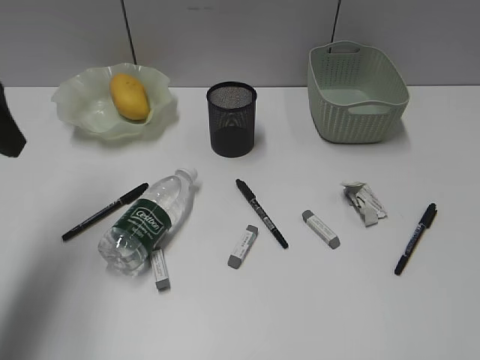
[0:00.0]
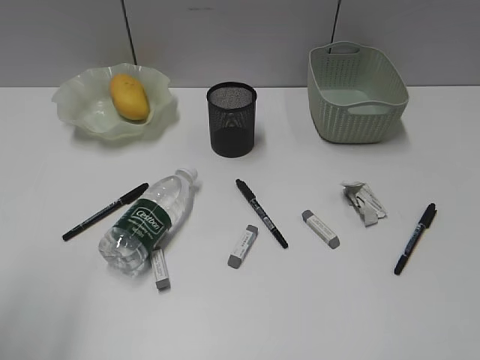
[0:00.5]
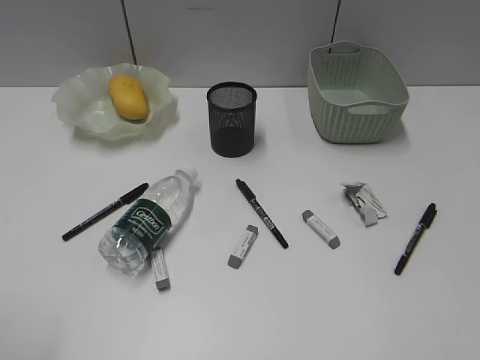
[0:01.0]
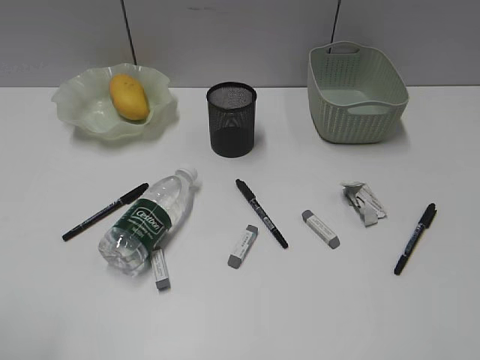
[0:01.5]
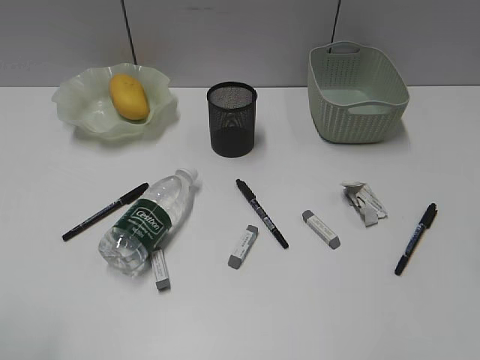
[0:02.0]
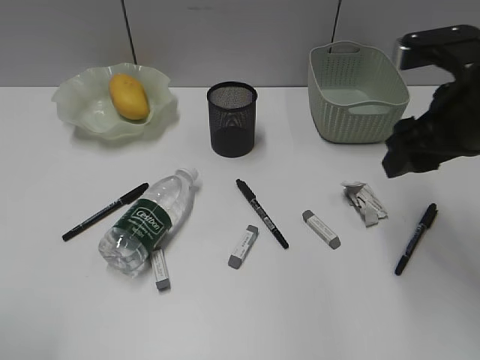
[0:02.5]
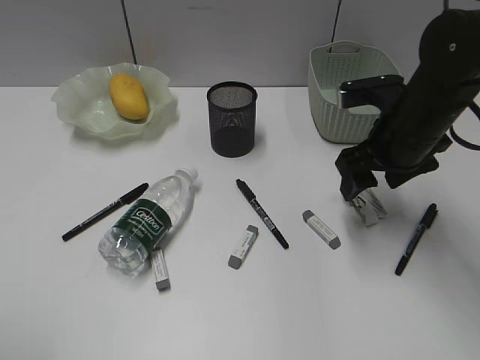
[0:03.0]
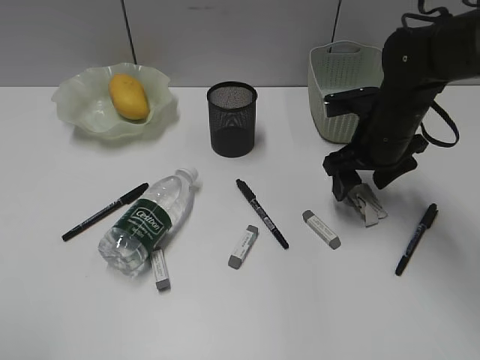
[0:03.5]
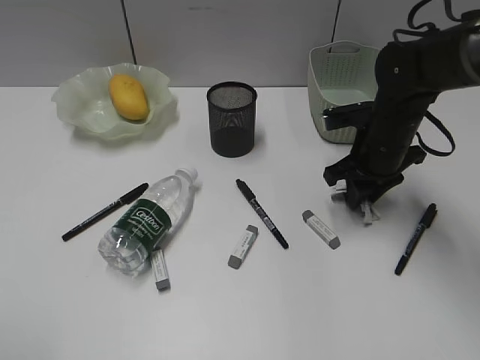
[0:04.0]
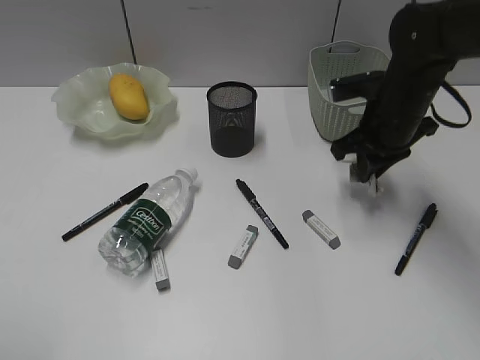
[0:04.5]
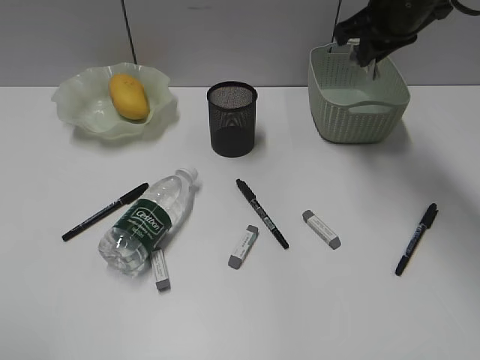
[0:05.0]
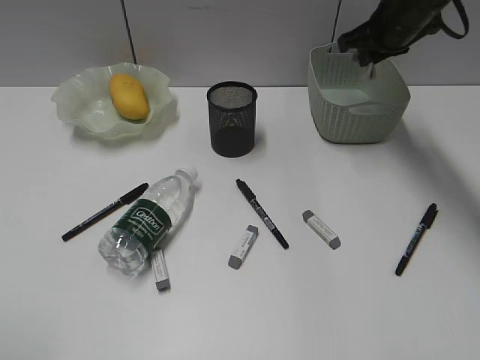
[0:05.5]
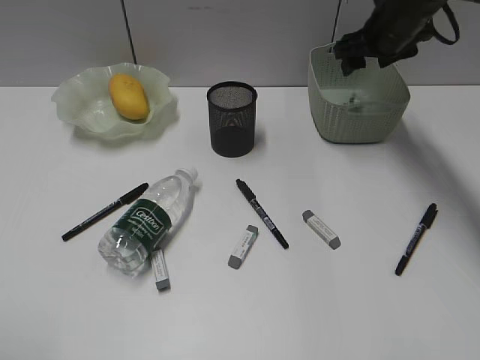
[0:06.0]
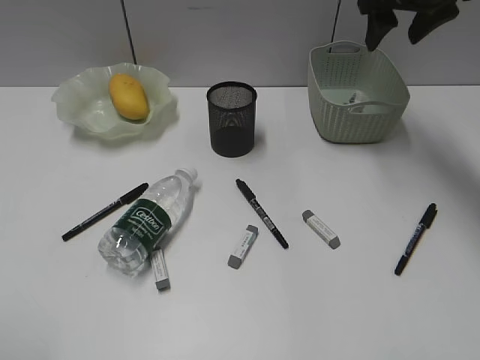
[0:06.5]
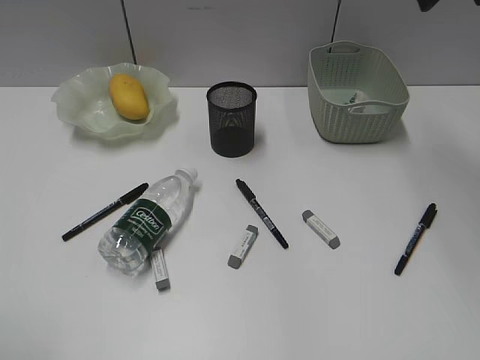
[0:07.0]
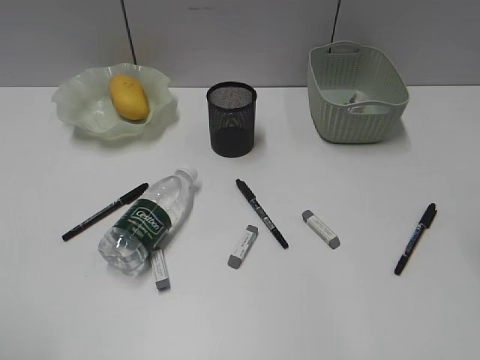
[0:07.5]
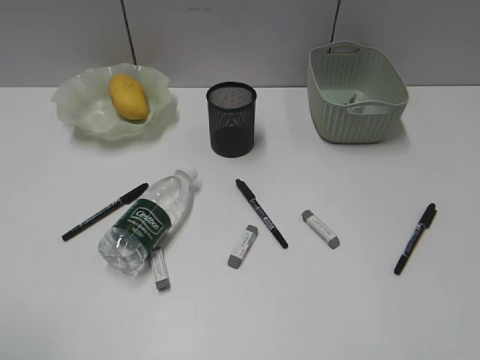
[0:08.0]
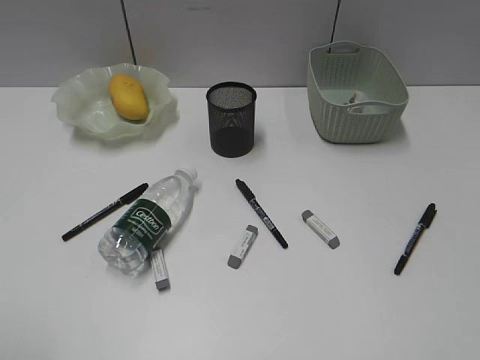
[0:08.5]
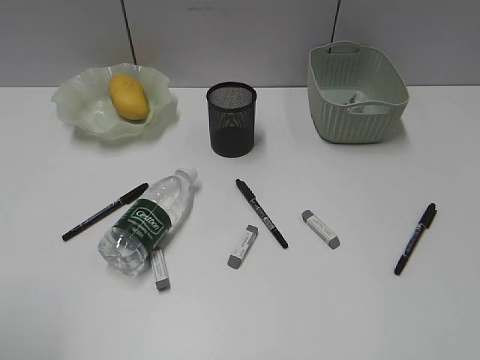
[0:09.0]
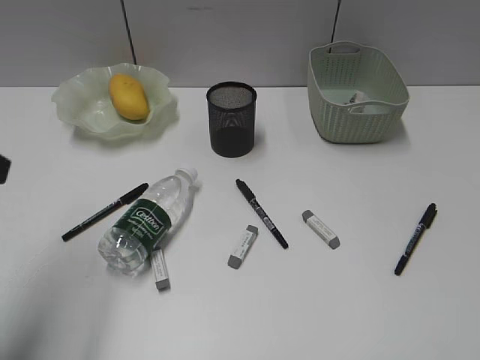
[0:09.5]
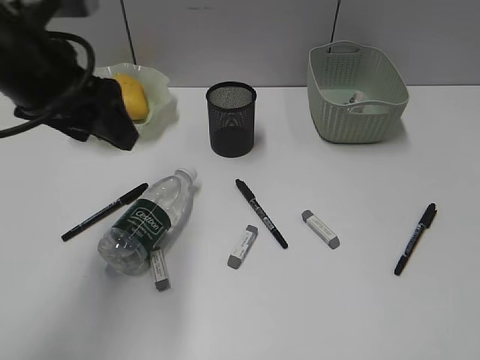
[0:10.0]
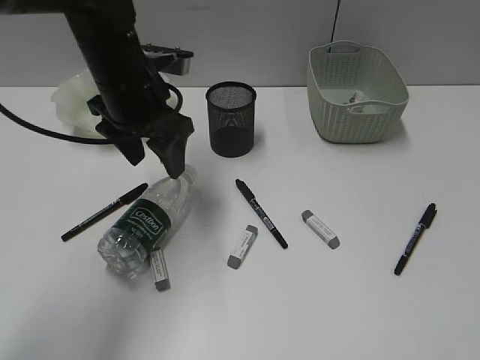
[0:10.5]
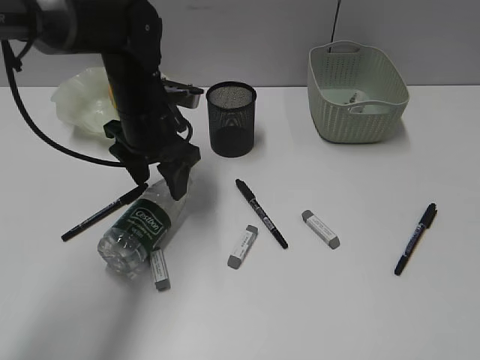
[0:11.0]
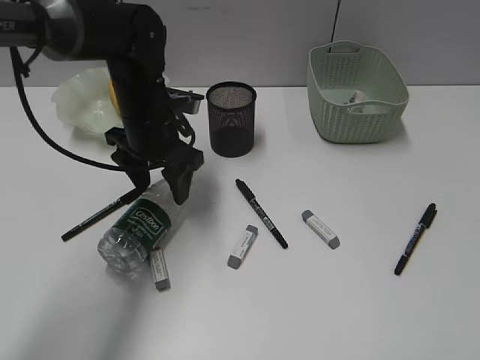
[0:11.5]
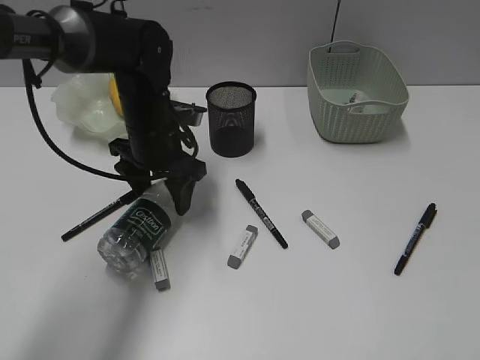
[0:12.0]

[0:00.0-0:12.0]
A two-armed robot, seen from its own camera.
Step, 0:00.0 to 0:04.0: Grasp the waste paper with right gripper.
Step, 0:04.5 to 0:05.5: Place the waste paper in the basket with right gripper.
0:00.0 to 0:02.0: The left gripper heads backward, covering approximately 20 cm.
0:02.0 to 0:04.0: The right gripper travels forward, downward and to the left by roughly 30 cm, and closes up.
0:04.0 to 0:06.0: The right gripper travels forward and upward by some 15 cm, and opens.
0:06.0 to 0:08.0: The right gripper is displaced backward by about 50 cm.
0:08.0 to 0:10.0: The left gripper travels forward and to the right by some 30 cm, while the right gripper goes approximately 5 cm downward.
0:10.0 to 0:12.0: The left gripper goes approximately 20 cm downward, forward and to the right.

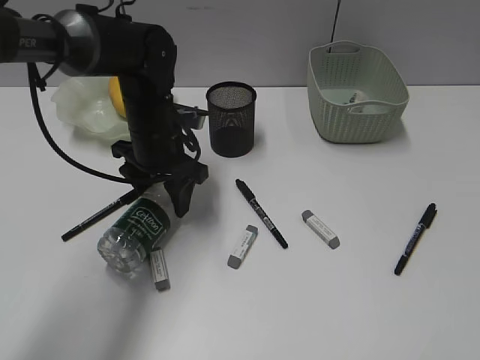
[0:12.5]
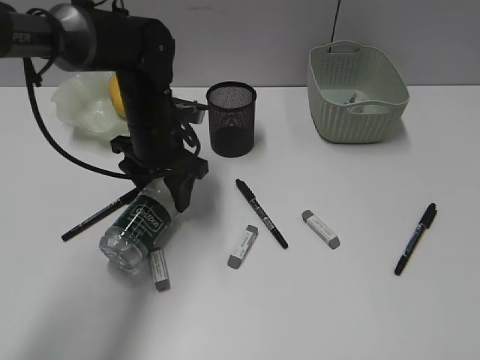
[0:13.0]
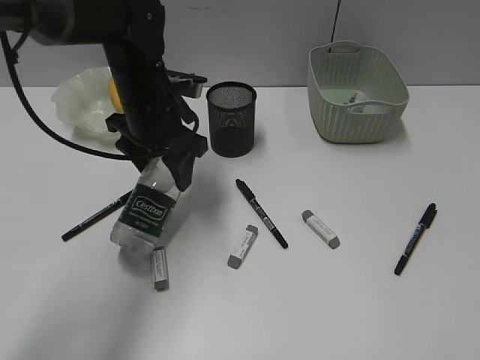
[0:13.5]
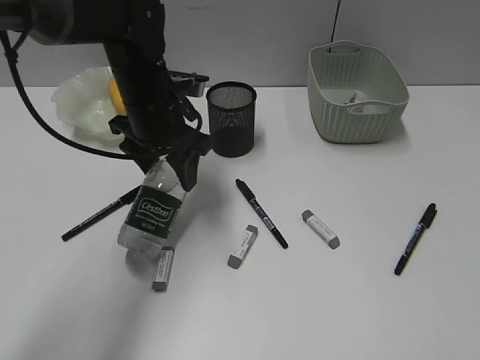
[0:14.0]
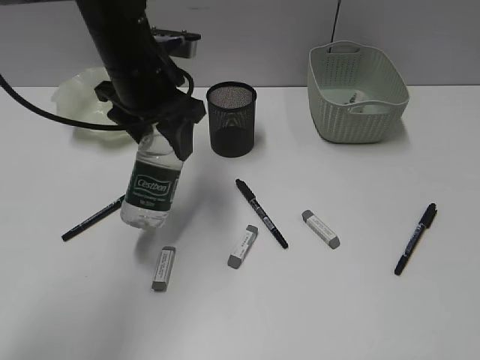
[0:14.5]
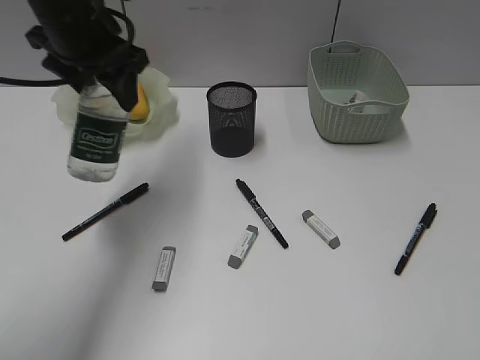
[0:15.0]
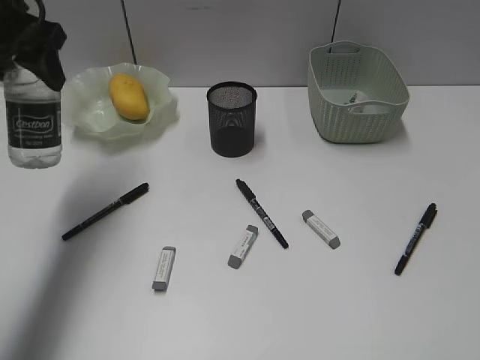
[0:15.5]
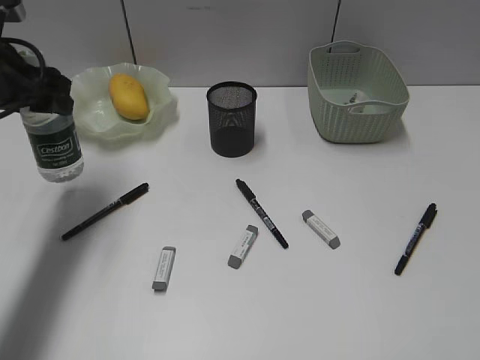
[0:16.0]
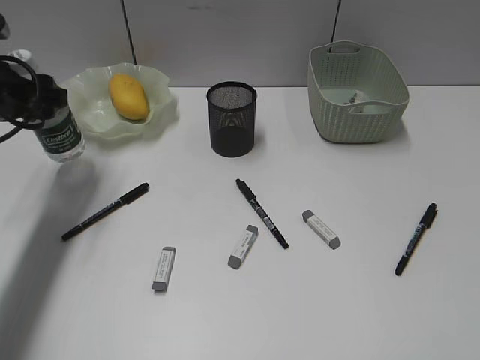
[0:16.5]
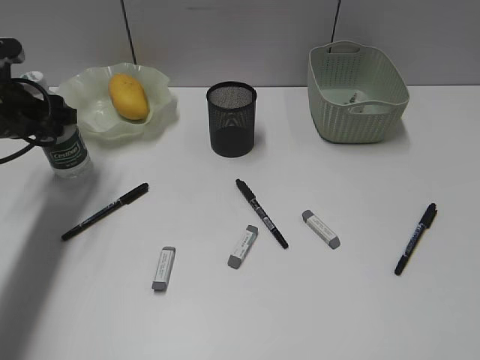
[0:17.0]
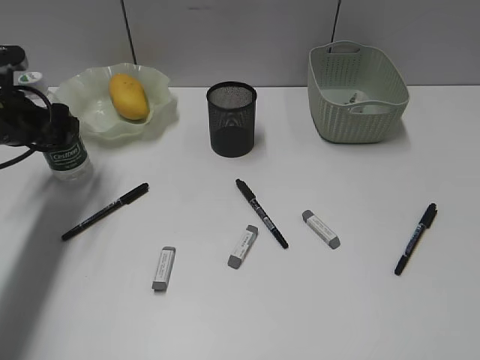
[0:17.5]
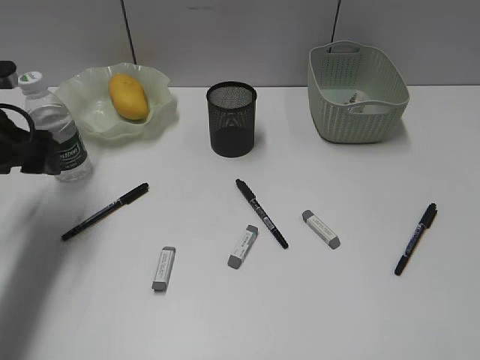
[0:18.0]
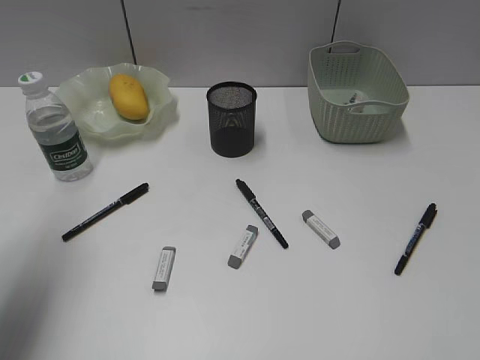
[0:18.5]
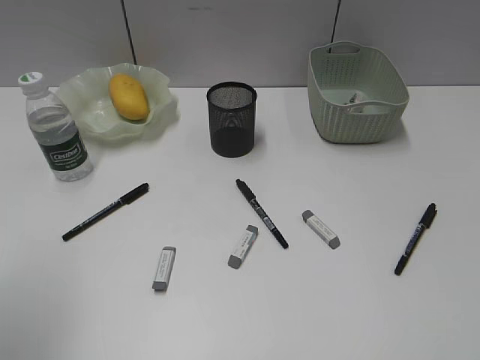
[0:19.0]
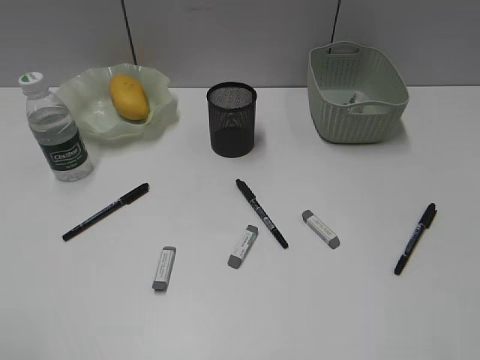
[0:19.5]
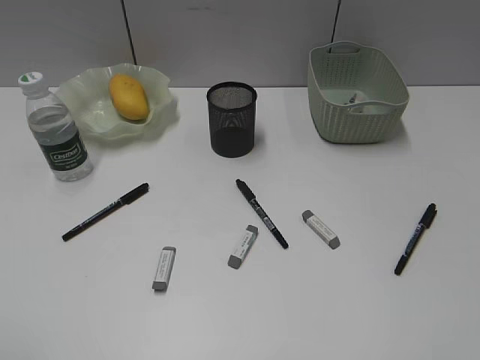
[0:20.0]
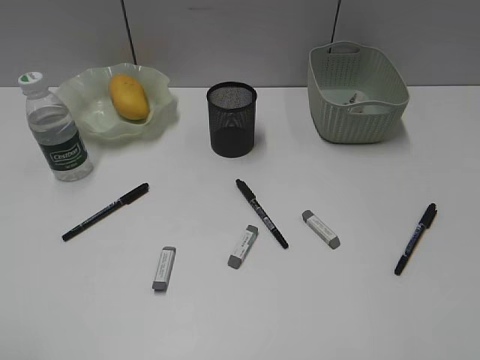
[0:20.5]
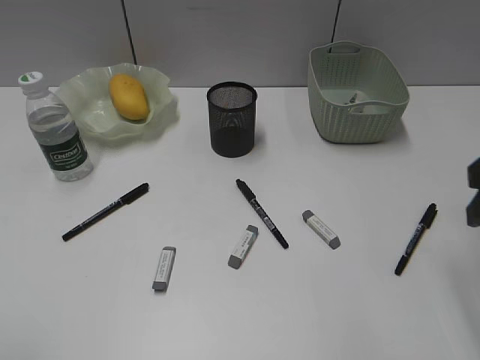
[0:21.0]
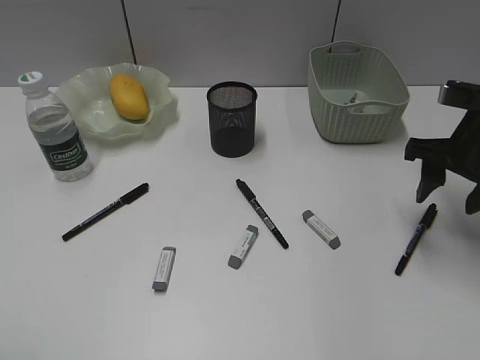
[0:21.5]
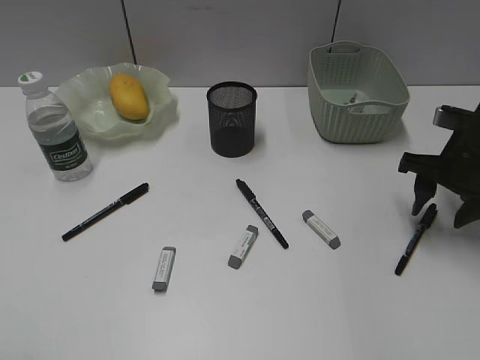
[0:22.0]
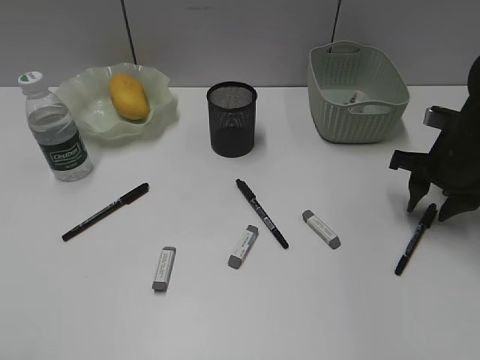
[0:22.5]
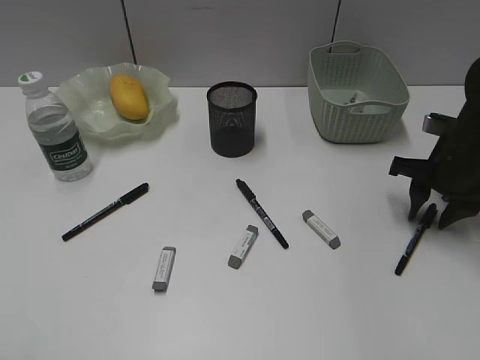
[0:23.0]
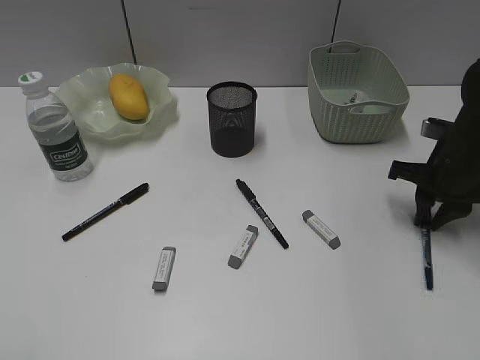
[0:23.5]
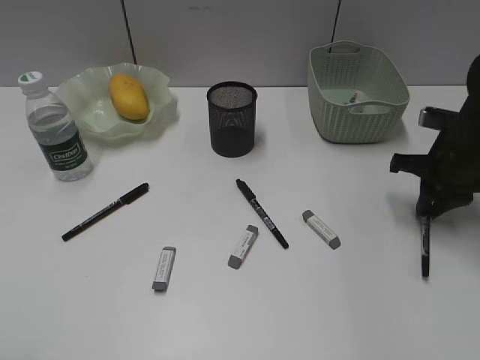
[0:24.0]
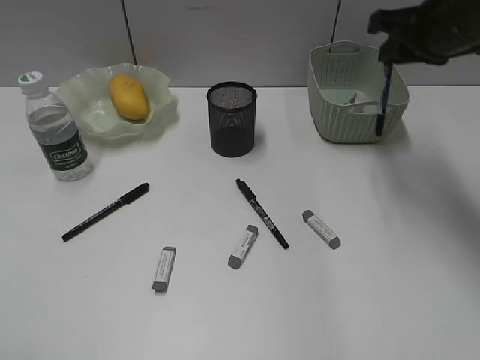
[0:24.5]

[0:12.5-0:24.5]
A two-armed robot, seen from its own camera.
Step, 0:13.0 to 0:17.5: Stand the bottle with left gripper.
Step, 0:18.0 to 0:23.5: Grasp the black pen with right gripper.
0:12.5 to 0:14.5: The left gripper is displaced upward by some 10 cm.
0:14.5 to 0:16.5: The left gripper goes roughly 15 cm to the left.
0:16.5 to 0:18.5: The left gripper goes about 15 cm backward and upward.
0:18.5 to 0:20.5: The left gripper travels backward by roughly 20 cm.
0:20.5 to 0:22.5: The right gripper moves forward and downward, some 30 cm.
0:22.5 to 0:24.5: The right gripper shifts about 15 cm upward, and closes its fingers.

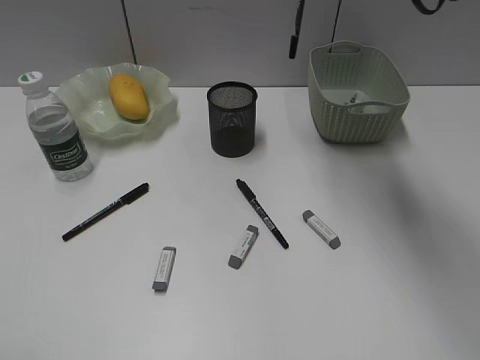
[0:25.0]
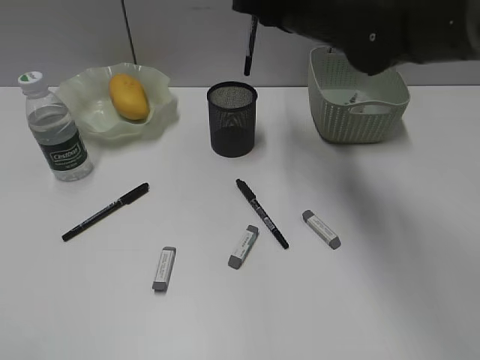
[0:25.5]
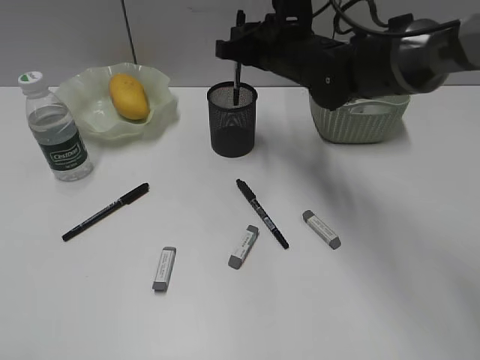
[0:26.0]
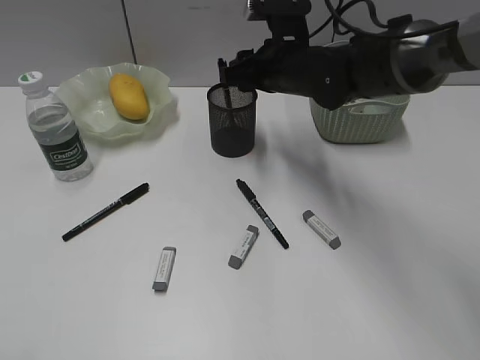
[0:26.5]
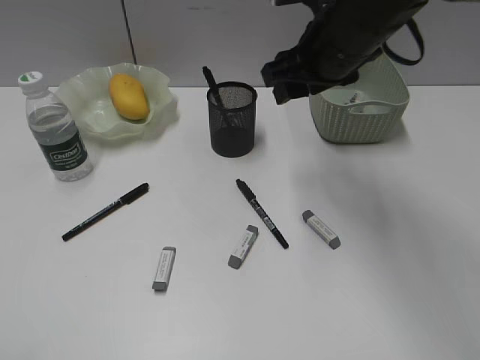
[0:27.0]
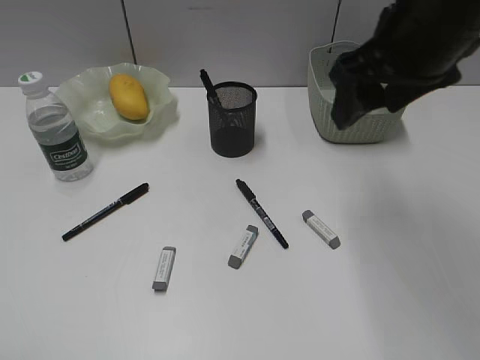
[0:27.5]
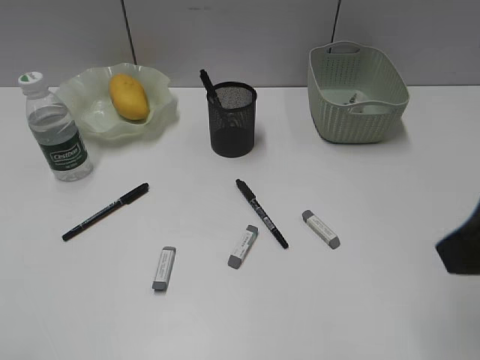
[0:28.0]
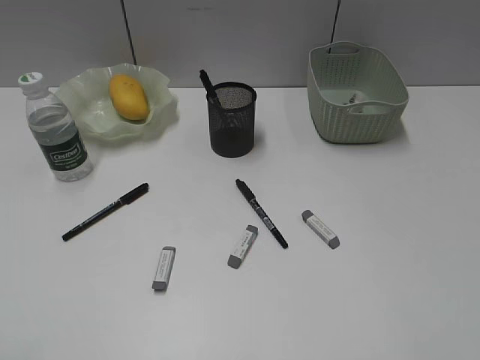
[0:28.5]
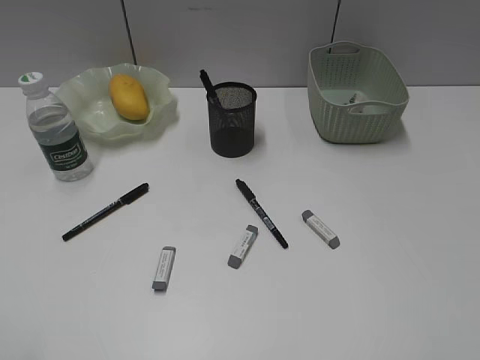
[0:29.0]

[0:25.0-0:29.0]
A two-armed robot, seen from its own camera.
Step, 0:25.0 to 0:26.5: Place the black pen in pen holder with right gripper.
0:25.0 to 0:27.0: The right gripper is displaced downward by about 5 cm, and opens up.
0:27.0 to 0:29.0: The right gripper is displaced backward and to the right by roughly 40 cm.
